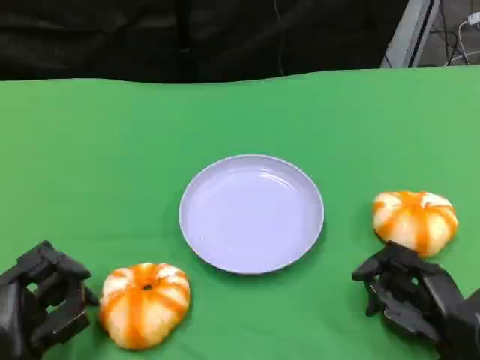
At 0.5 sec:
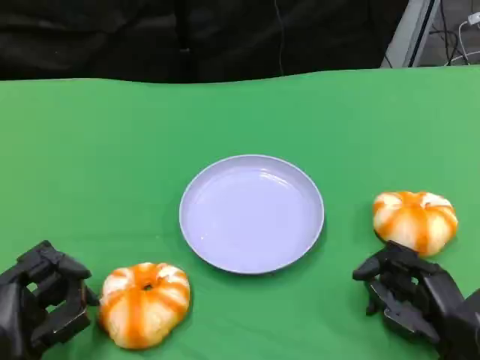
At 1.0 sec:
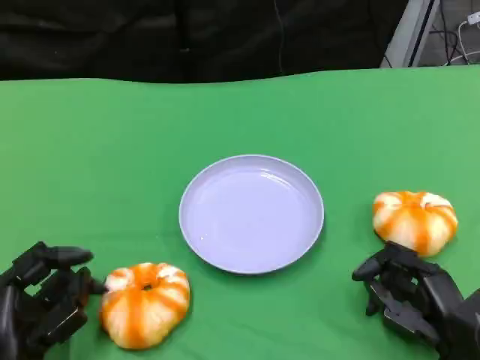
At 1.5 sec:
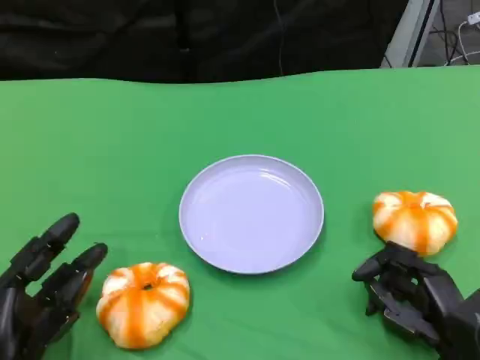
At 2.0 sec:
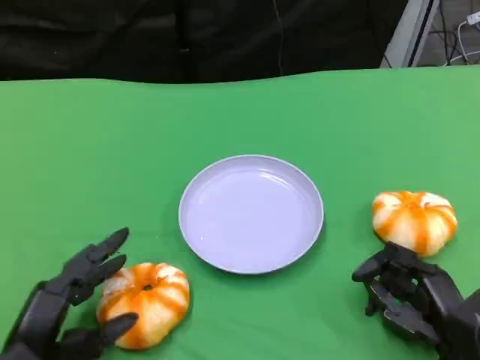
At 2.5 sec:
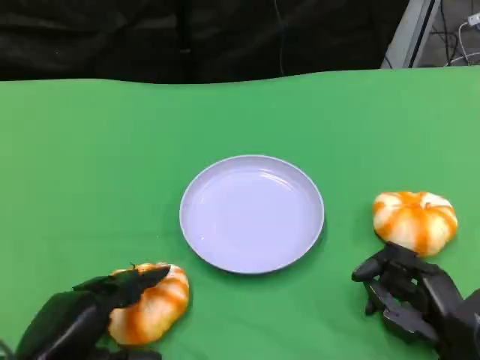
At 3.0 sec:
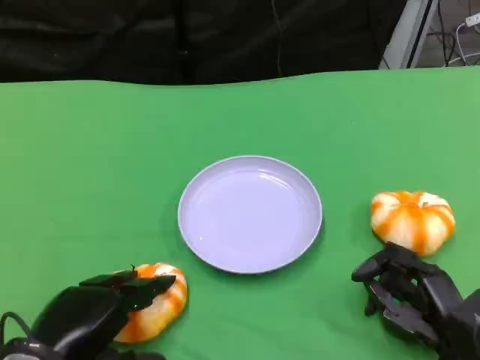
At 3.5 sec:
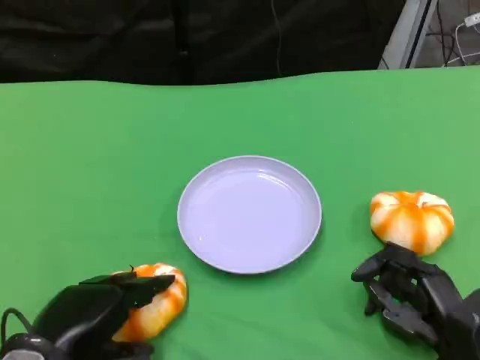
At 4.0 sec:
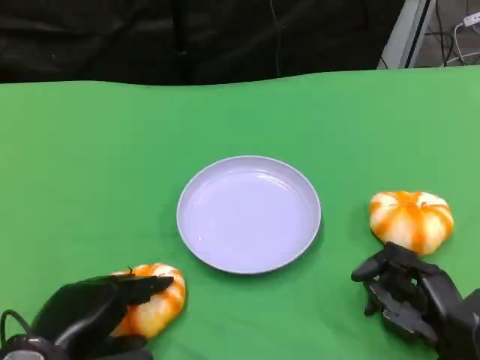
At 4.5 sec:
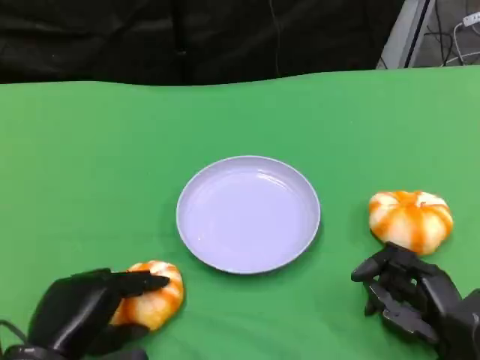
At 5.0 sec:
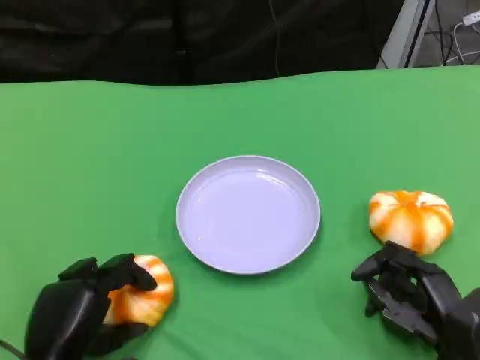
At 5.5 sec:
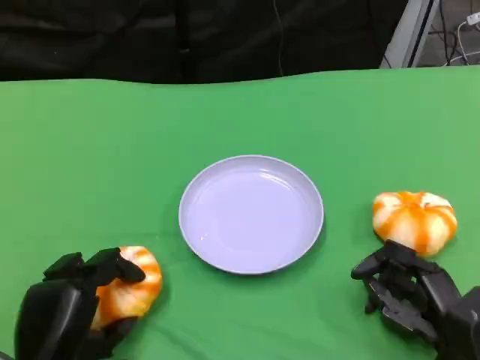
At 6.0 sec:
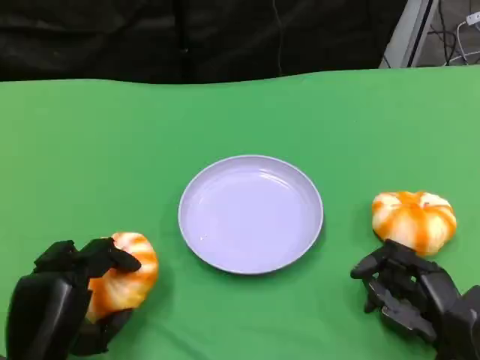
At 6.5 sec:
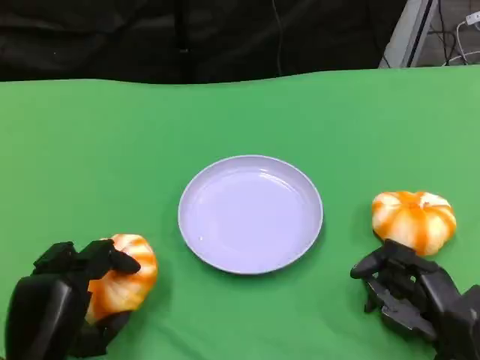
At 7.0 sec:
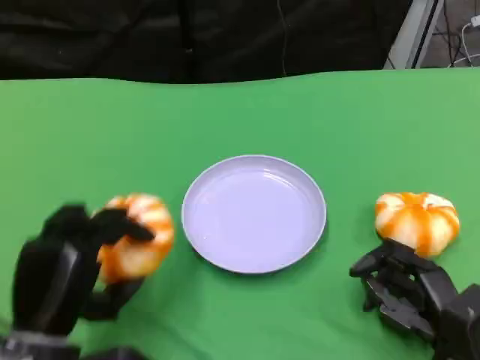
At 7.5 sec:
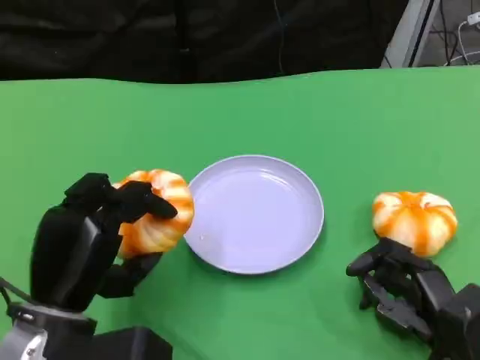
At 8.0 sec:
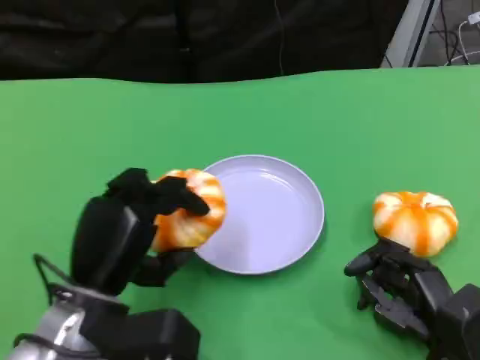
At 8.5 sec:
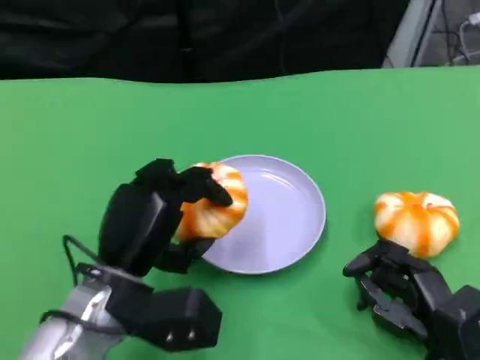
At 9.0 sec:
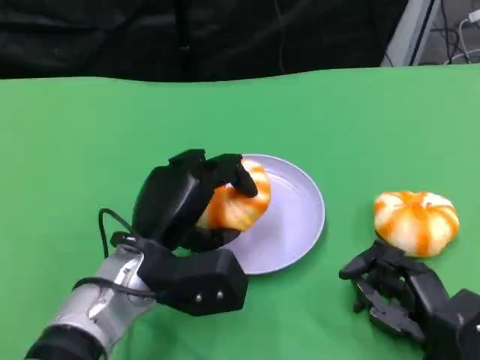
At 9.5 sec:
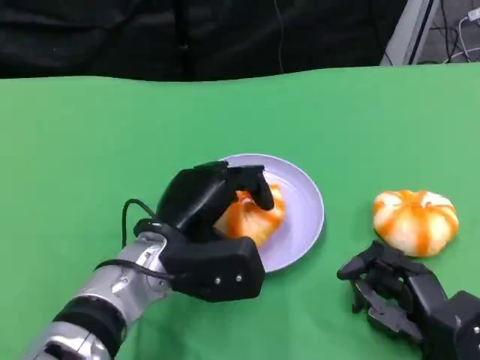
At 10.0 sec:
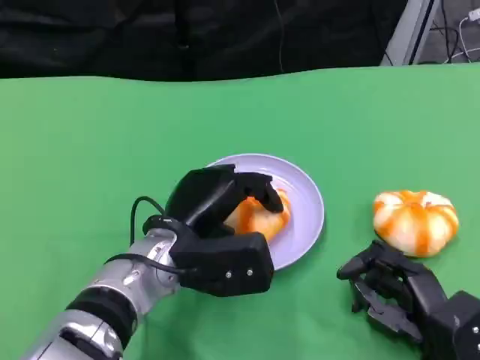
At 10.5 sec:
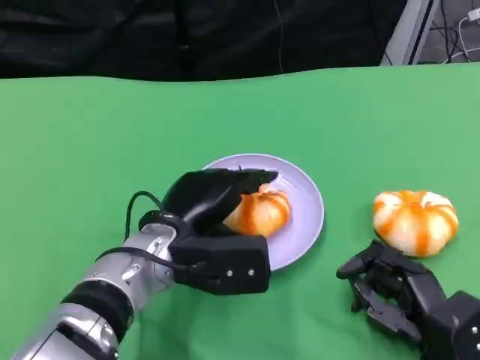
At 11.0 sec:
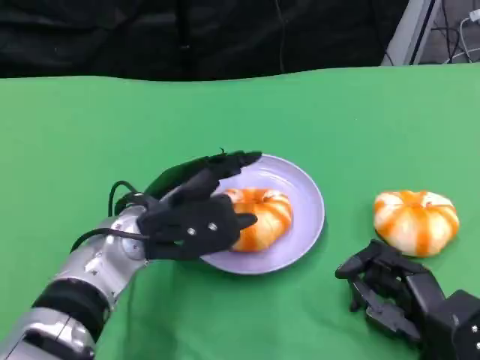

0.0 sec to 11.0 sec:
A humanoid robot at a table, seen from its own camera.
Task of the whole recording: Grasp the bread from the table and place it into the plate.
5.5 sec to 7.5 sec: The left hand travels upward by approximately 5 cm.
7.5 sec to 9.0 sec: The left hand goes roughly 10 cm to the right and forward.

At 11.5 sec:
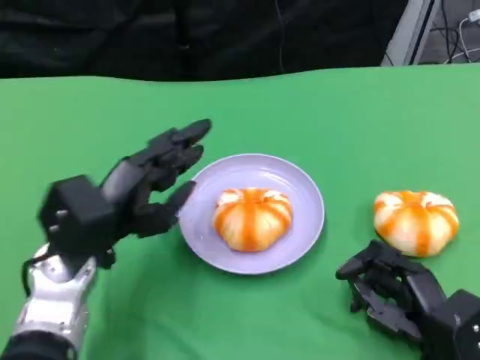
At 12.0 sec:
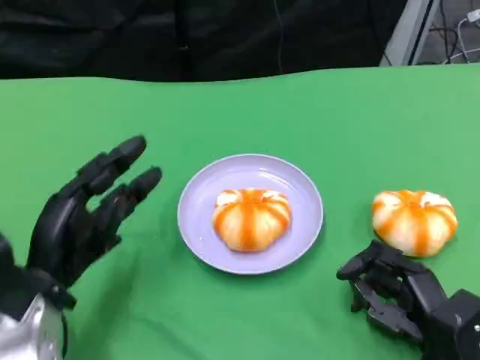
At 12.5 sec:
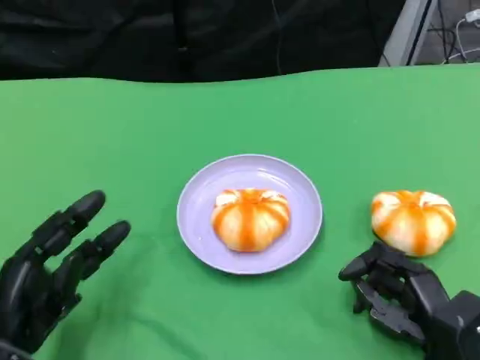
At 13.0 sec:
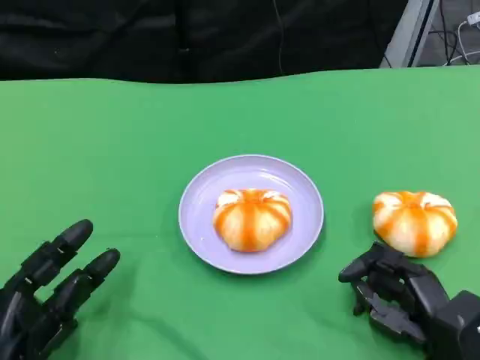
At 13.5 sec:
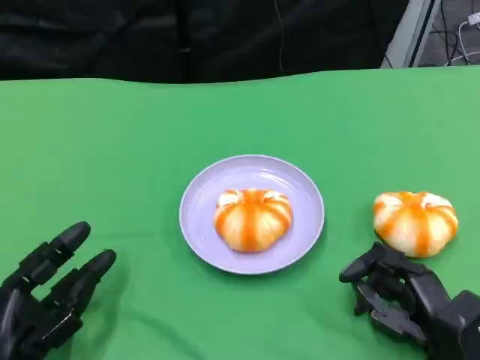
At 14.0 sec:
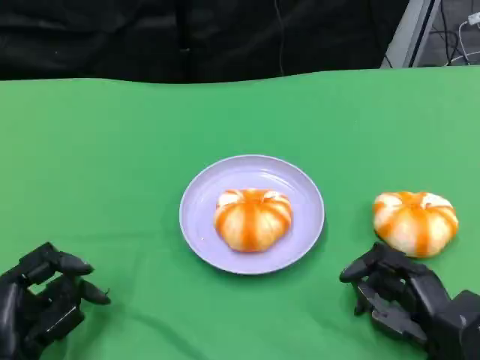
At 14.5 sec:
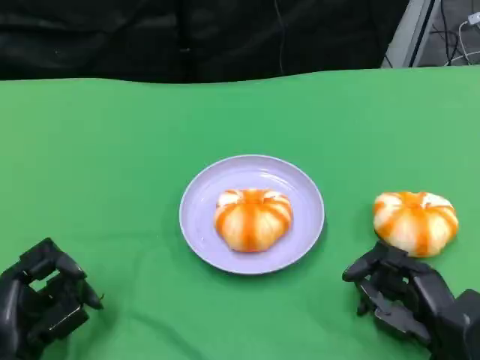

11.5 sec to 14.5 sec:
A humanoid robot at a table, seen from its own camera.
Task of the whole recording: Grasp the bread from the table and place it into the plate.
11.5 sec to 13.0 sec: The left hand shifts roughly 15 cm backward, downward and to the left.
13.0 sec to 14.5 sec: The hands make only small movements.

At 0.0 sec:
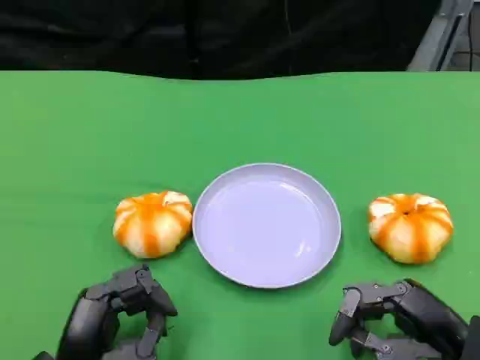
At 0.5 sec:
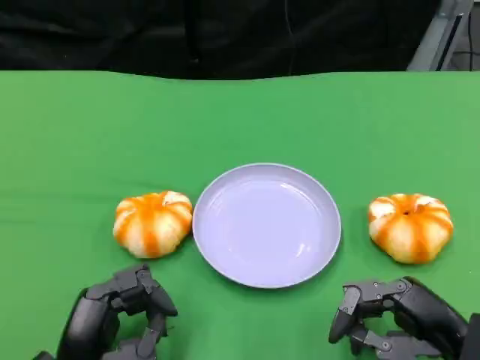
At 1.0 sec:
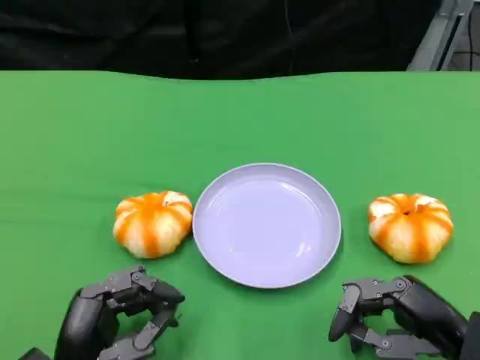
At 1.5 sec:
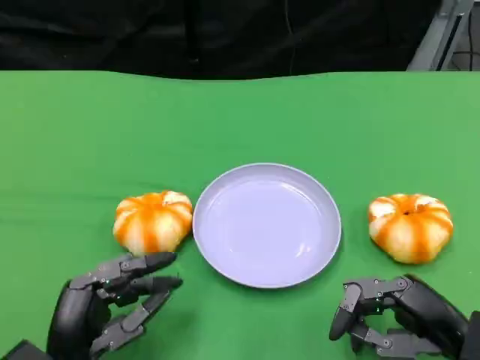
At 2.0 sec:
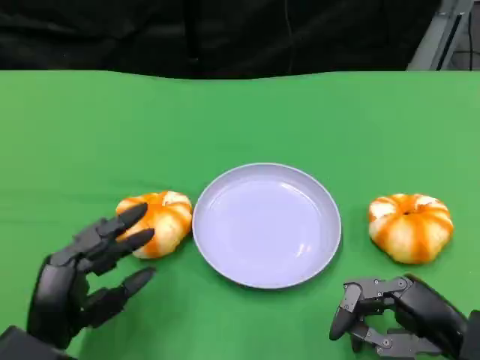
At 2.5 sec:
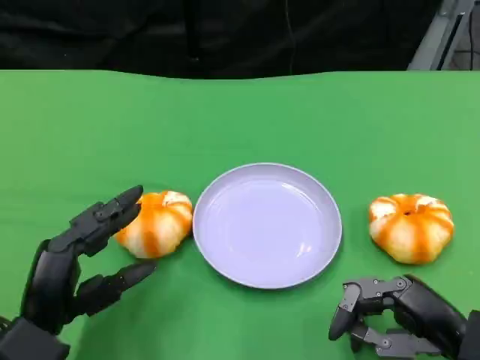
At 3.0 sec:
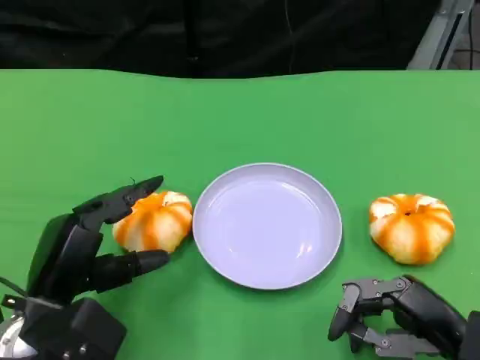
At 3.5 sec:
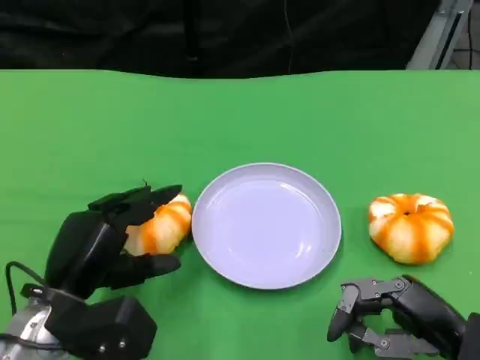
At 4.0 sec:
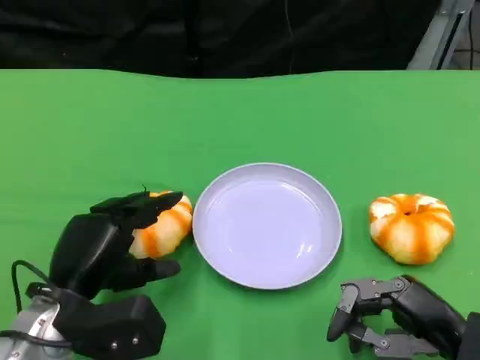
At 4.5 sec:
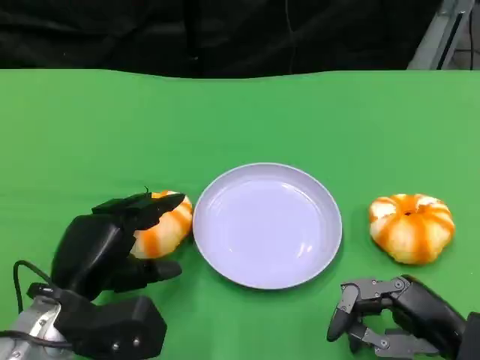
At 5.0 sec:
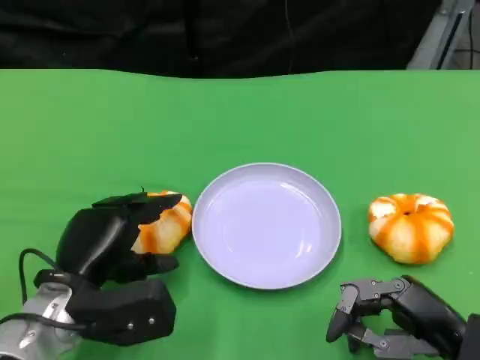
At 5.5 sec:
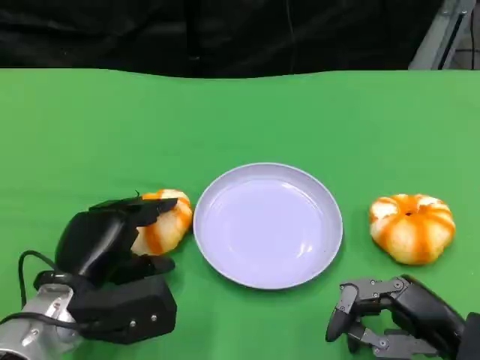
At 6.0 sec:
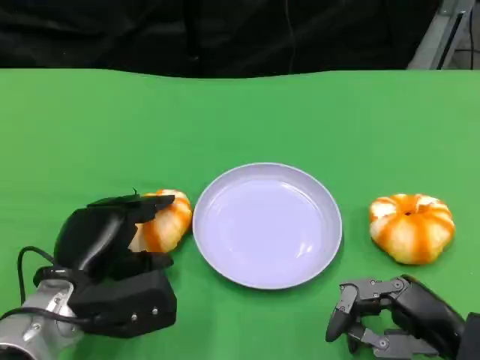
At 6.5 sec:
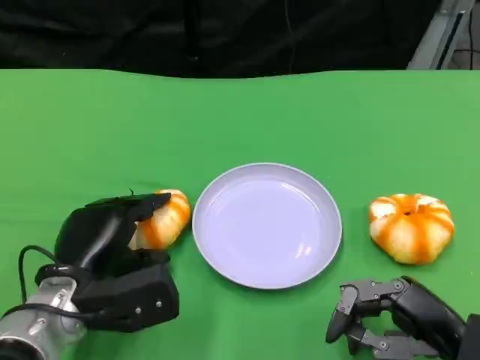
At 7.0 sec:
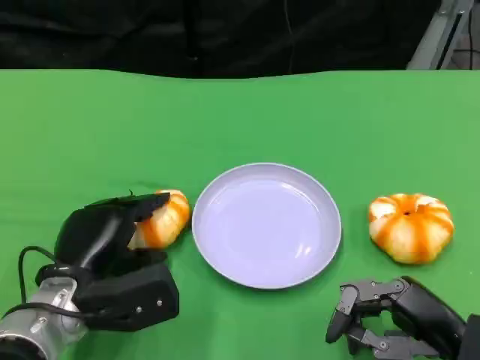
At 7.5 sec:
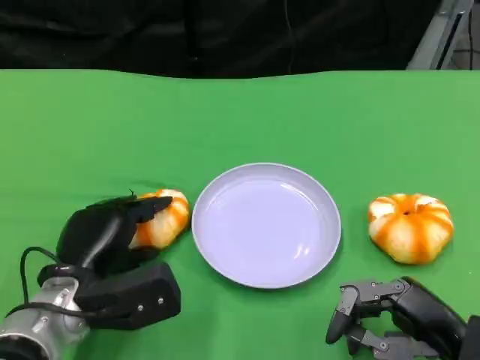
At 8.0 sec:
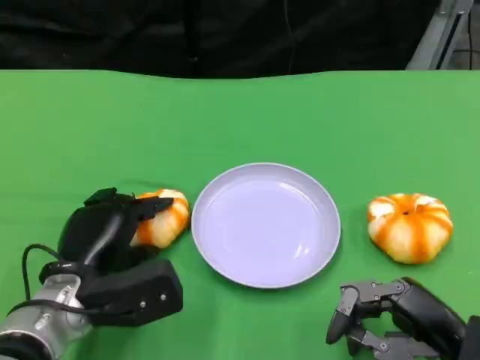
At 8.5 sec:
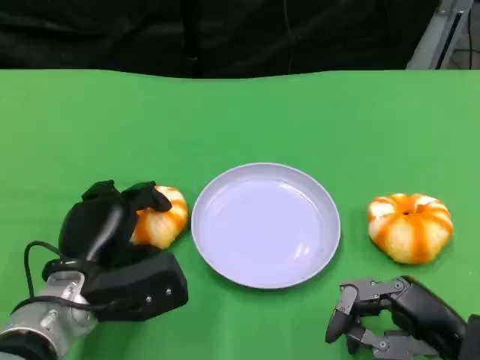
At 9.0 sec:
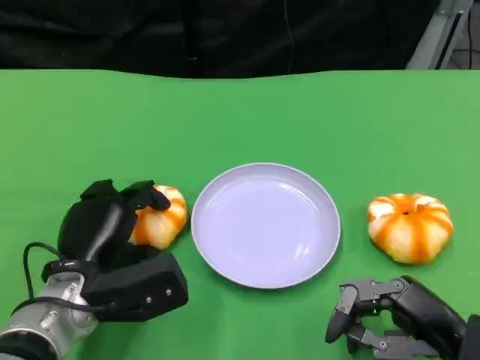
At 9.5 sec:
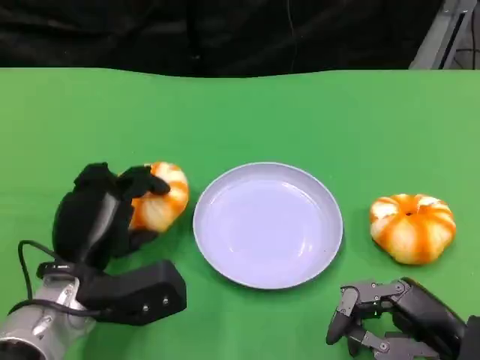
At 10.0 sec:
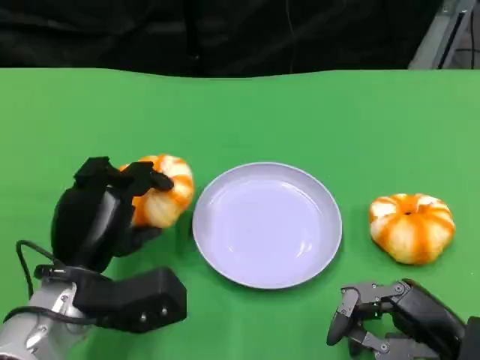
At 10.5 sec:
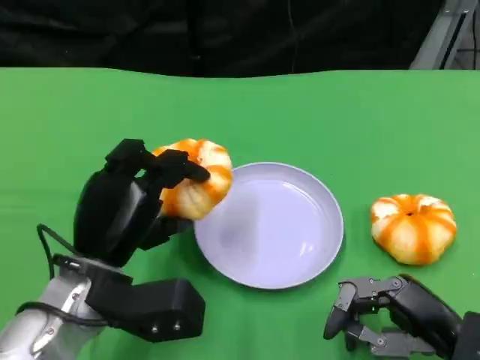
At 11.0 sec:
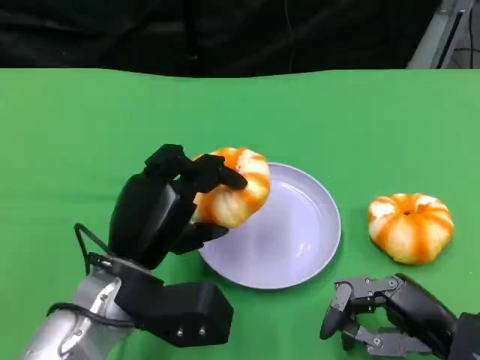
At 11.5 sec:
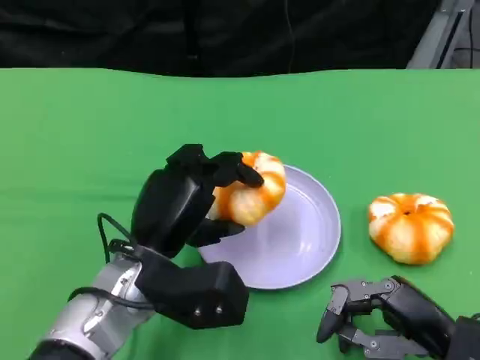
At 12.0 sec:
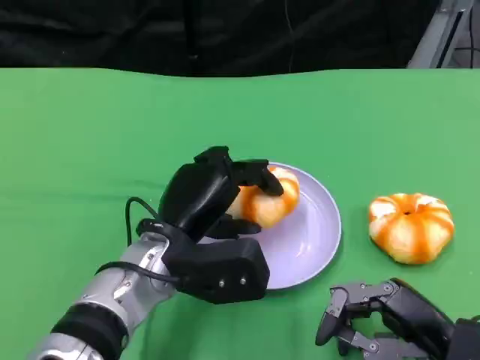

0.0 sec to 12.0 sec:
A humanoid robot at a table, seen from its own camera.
Task of the whole recording: Grasp the bread from the table and place it into the plate.
0.0 sec to 2.0 sec: The hands move only a little.
2.0 sec to 4.0 sec: The left hand changes place by about 5 cm.
4.0 sec to 6.0 sec: The hands make only small movements.
6.0 sec to 8.0 sec: Both hands stay about where they are.
10.0 sec to 12.0 sec: The left hand goes some 10 cm to the right.
